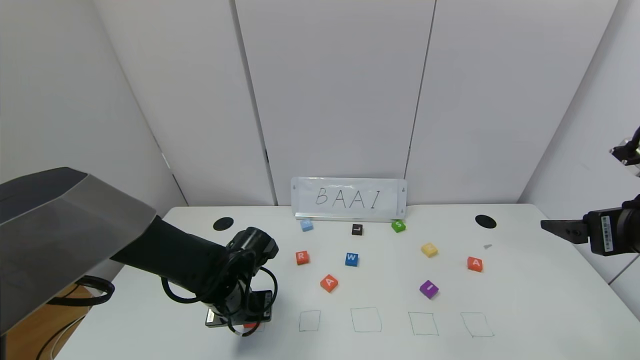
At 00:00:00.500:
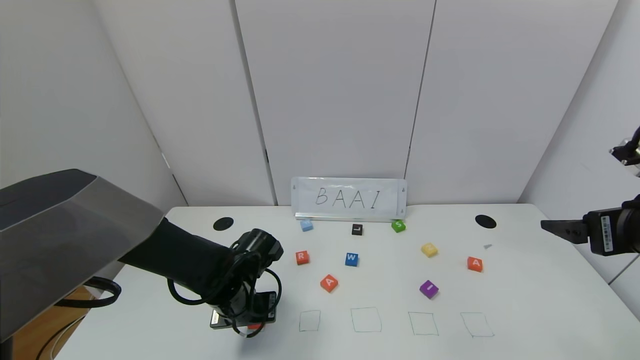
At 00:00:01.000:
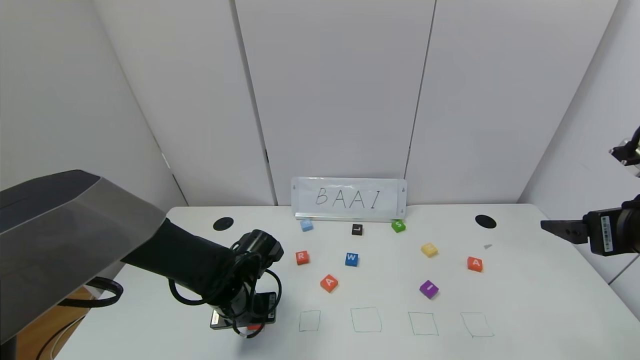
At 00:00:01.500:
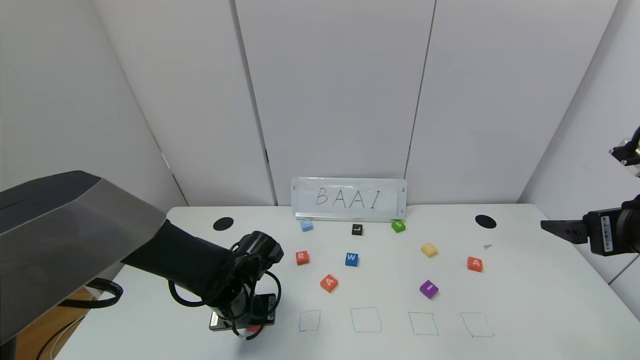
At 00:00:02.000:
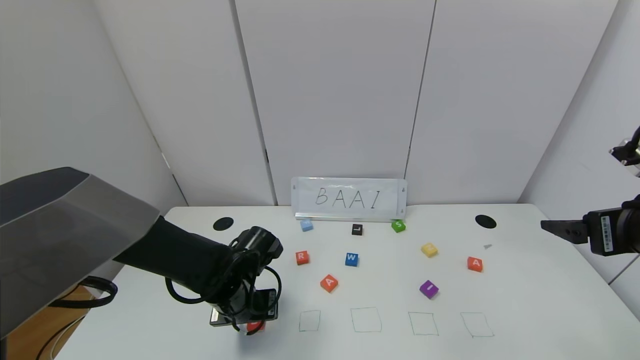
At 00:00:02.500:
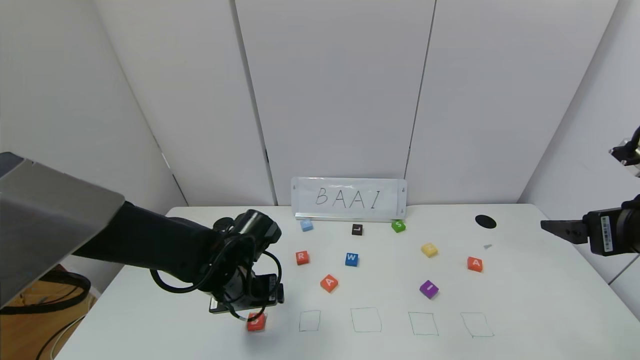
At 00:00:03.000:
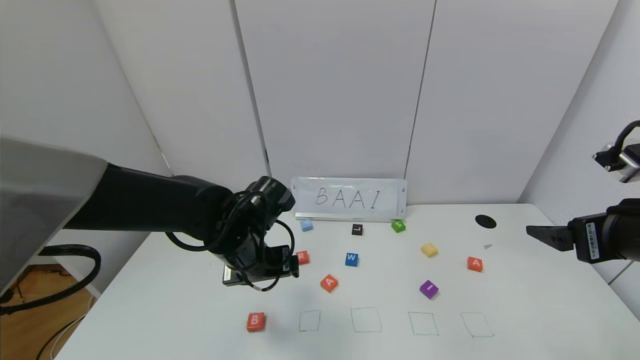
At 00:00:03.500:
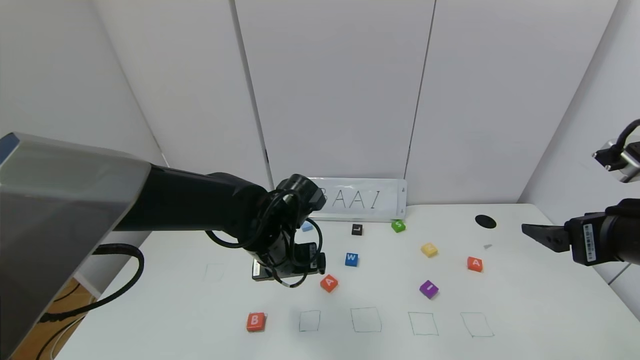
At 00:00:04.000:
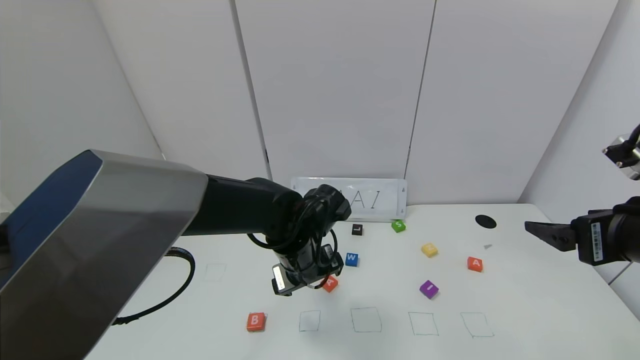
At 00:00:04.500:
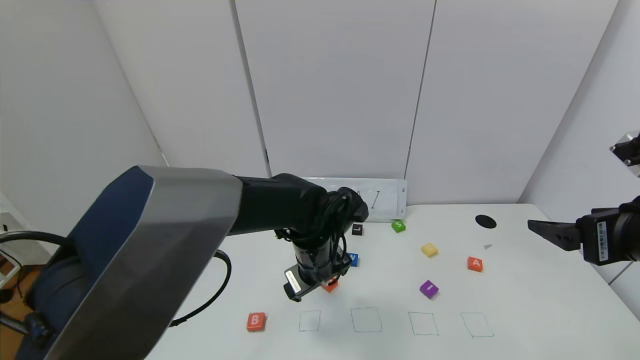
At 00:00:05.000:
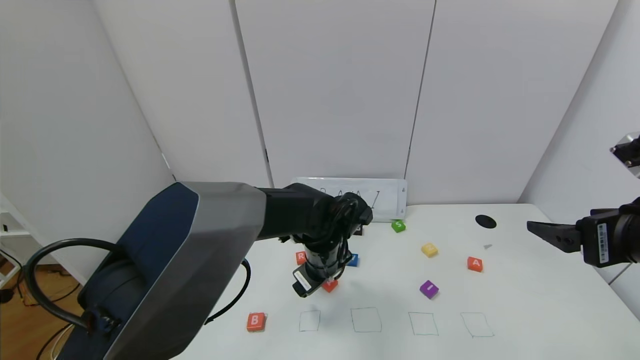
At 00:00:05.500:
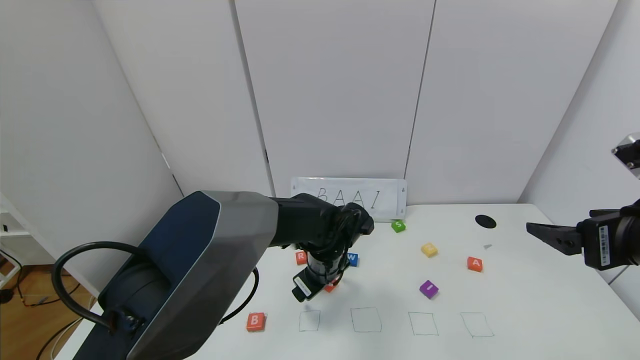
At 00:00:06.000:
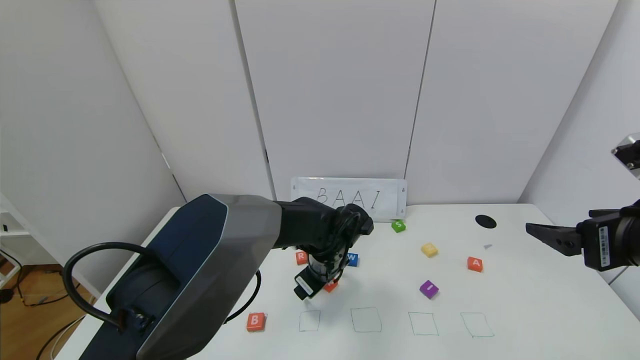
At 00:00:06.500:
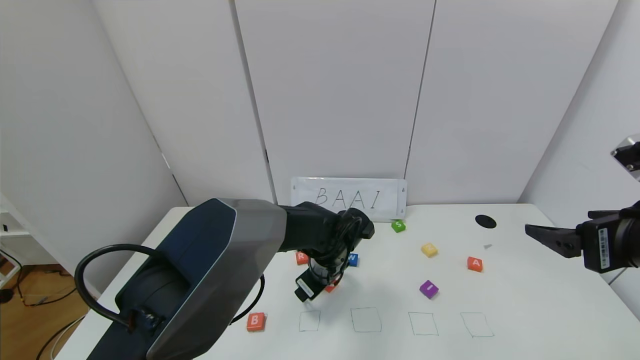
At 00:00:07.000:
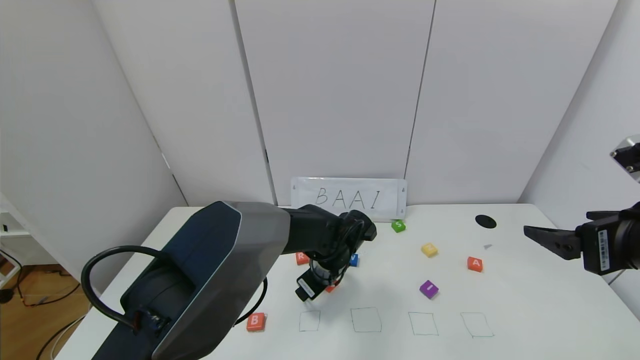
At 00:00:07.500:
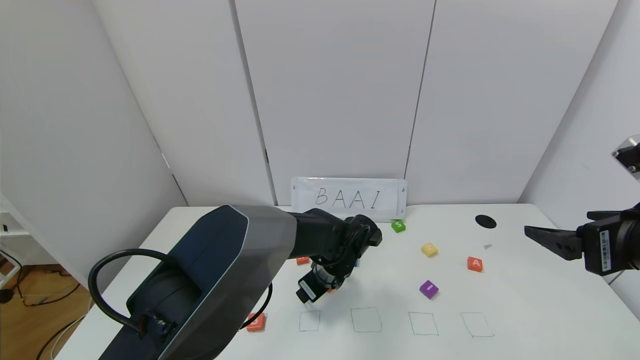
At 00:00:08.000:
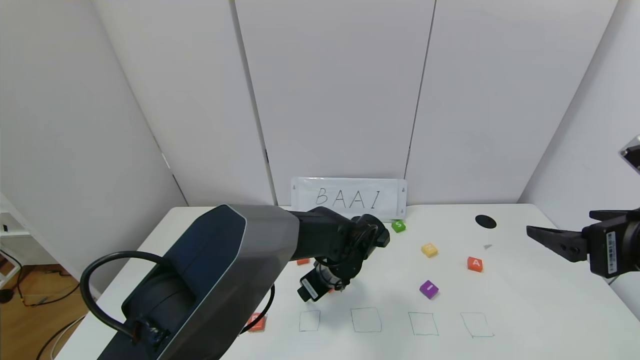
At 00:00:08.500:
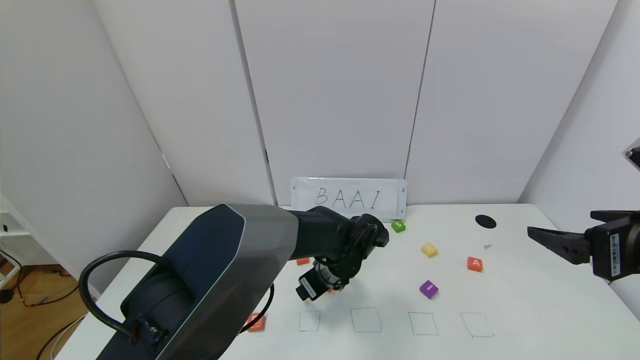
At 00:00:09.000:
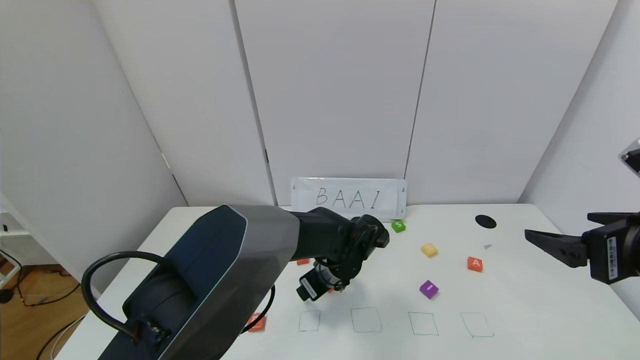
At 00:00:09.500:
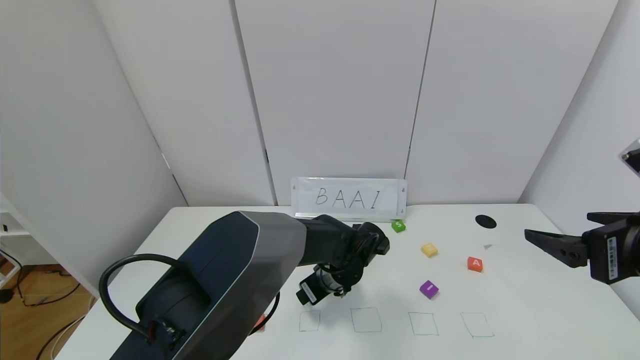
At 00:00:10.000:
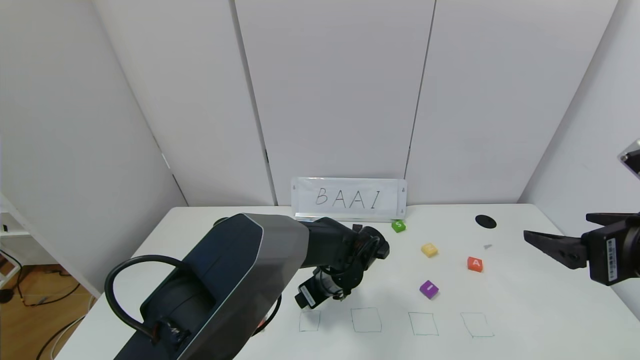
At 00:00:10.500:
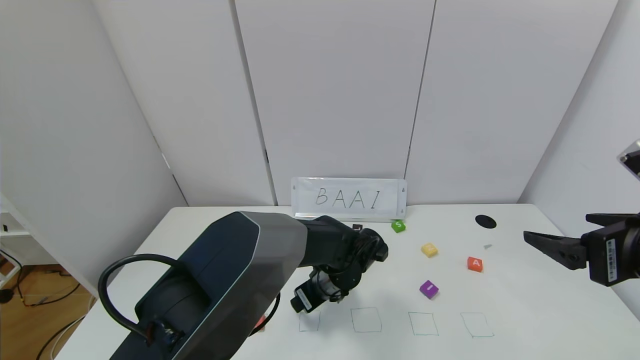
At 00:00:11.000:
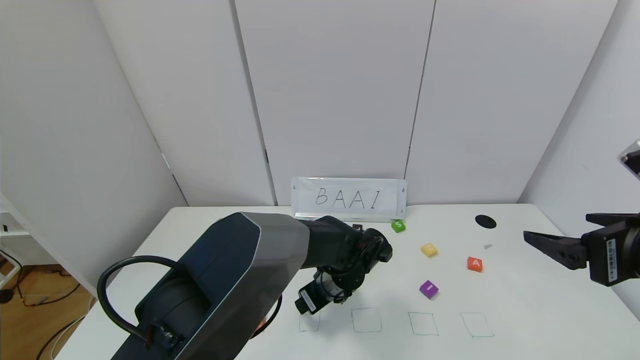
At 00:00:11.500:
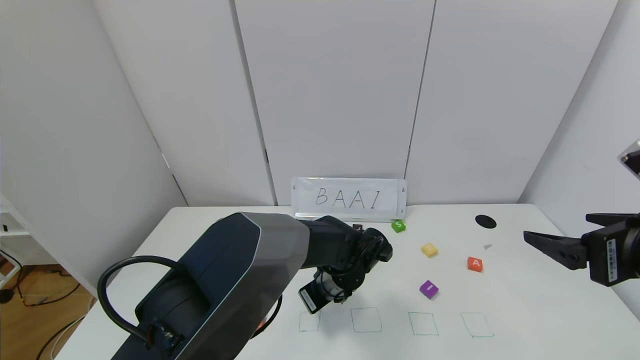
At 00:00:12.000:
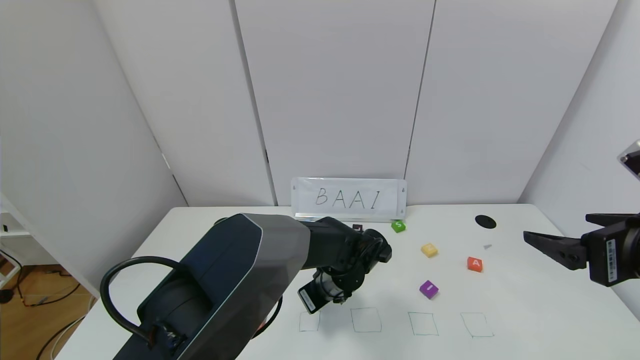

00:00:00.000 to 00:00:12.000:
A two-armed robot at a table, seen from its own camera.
Task of the whole recording: use the gripper to find blocks with the letters b, a, a, and i on the table and arrange them into BAAI, then find r and N and turn the arranged baai into brian.
Step, 00:00:00.000 to 00:00:02.000: Place the block B in the first location.
00:00:00.000 to 00:00:02.000: The left gripper opens up.
00:00:02.000 to 00:00:04.000: The left gripper travels to the right and upward by about 10 cm.
00:00:04.000 to 00:00:06.000: The left gripper shifts roughly 5 cm downward.
00:00:06.000 to 00:00:10.000: The grippers make only small movements.
00:00:10.000 to 00:00:12.000: The left gripper closes.

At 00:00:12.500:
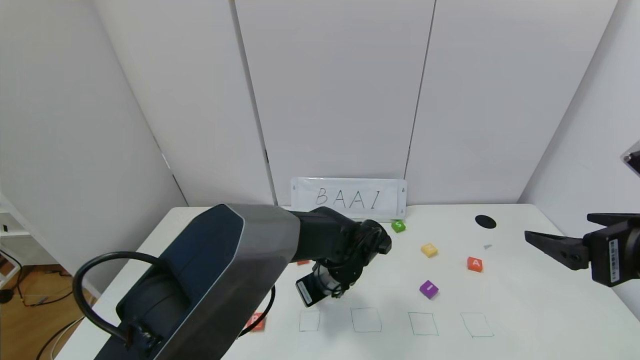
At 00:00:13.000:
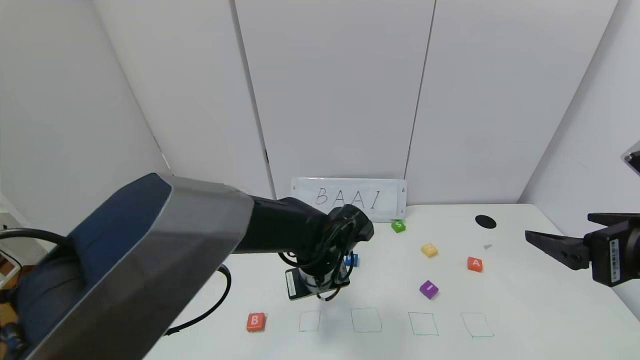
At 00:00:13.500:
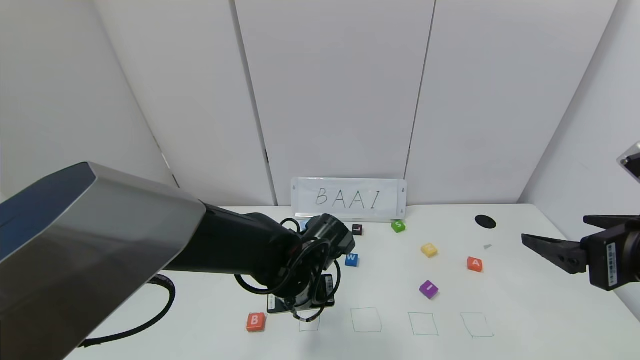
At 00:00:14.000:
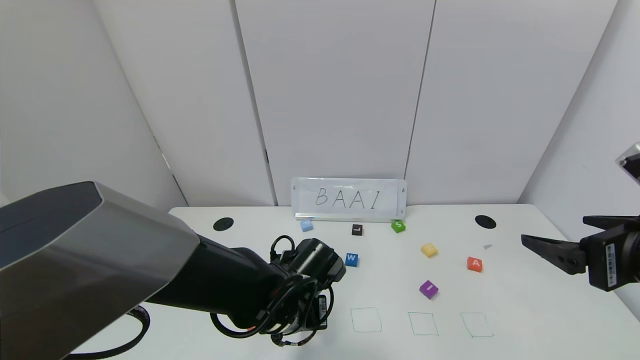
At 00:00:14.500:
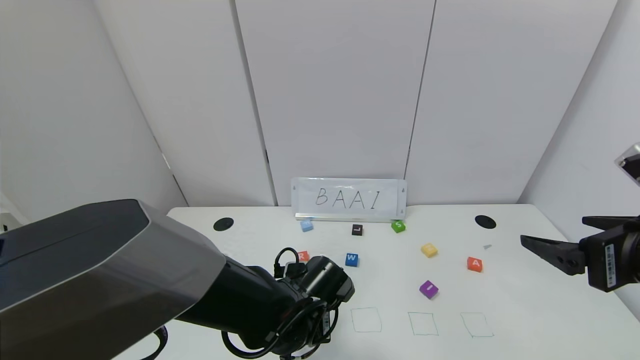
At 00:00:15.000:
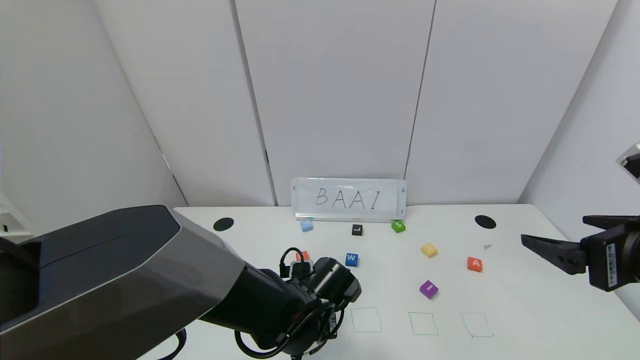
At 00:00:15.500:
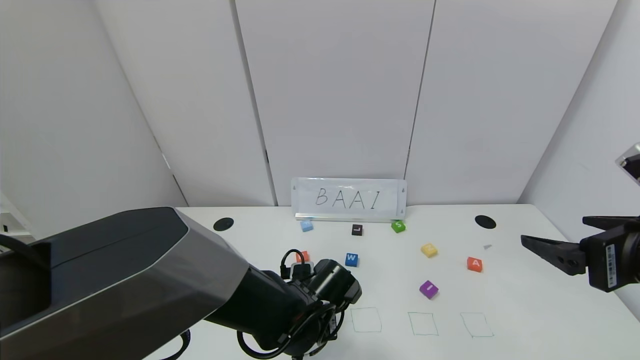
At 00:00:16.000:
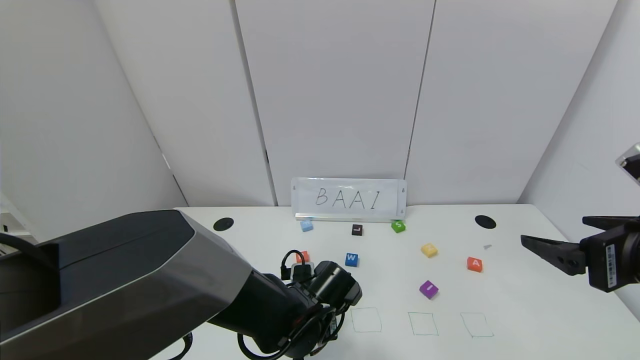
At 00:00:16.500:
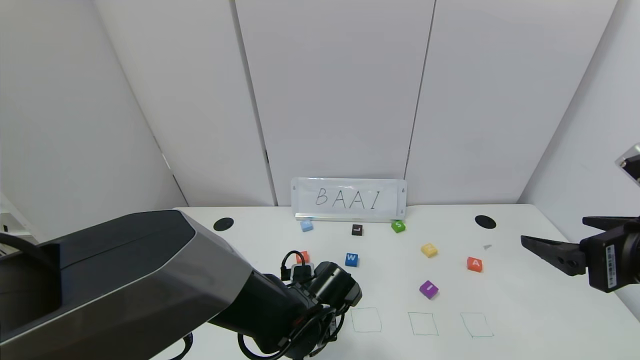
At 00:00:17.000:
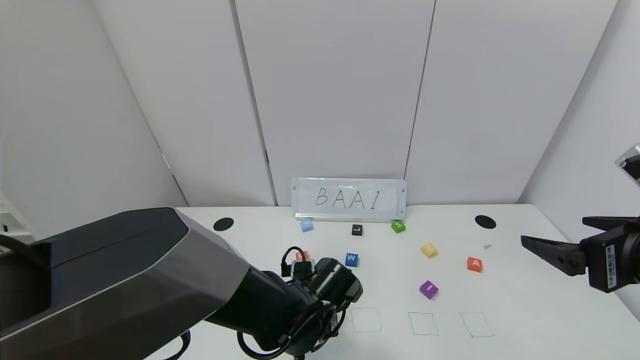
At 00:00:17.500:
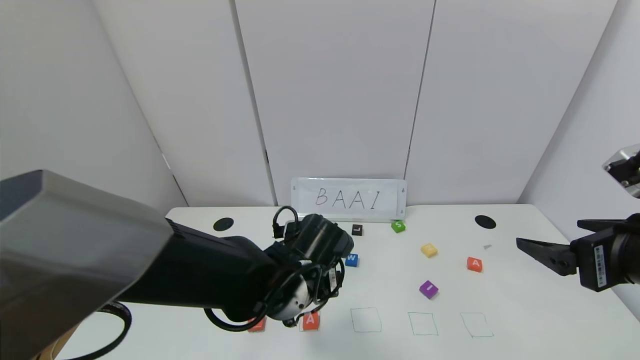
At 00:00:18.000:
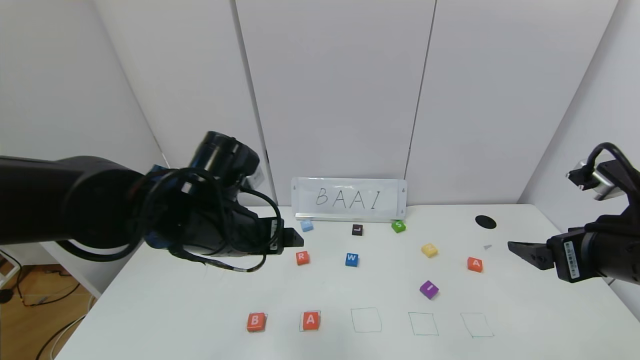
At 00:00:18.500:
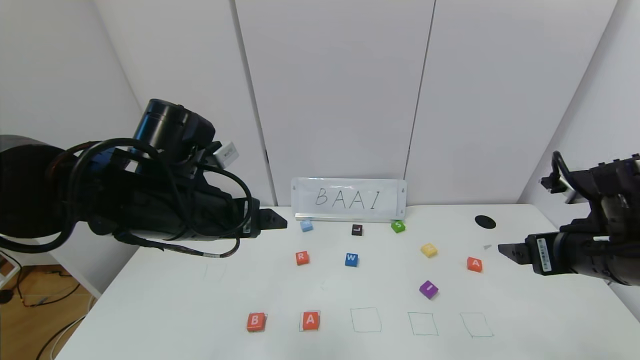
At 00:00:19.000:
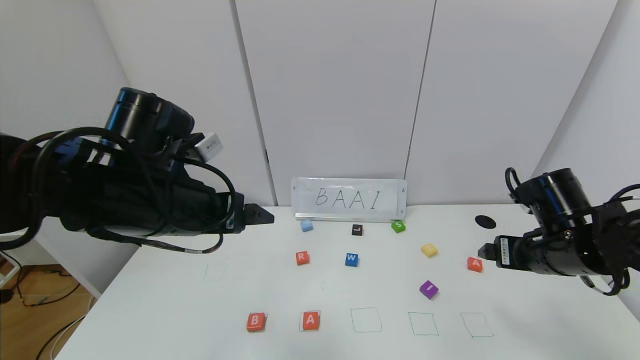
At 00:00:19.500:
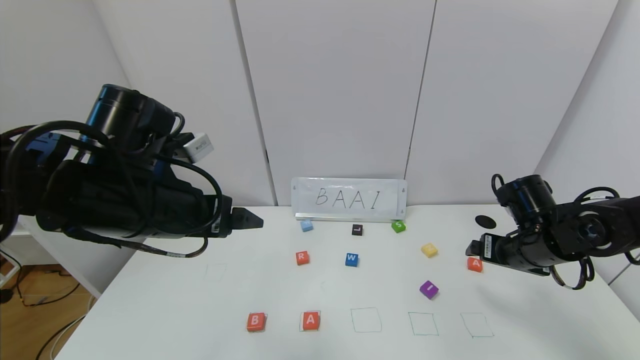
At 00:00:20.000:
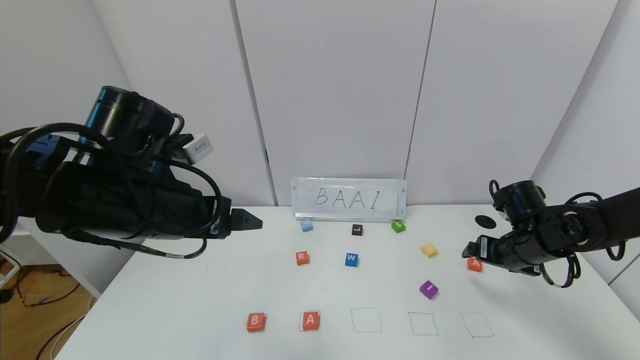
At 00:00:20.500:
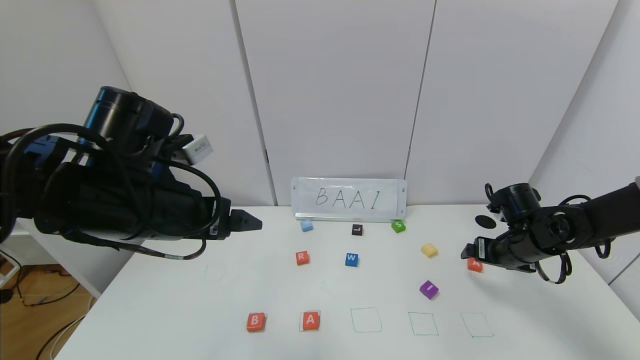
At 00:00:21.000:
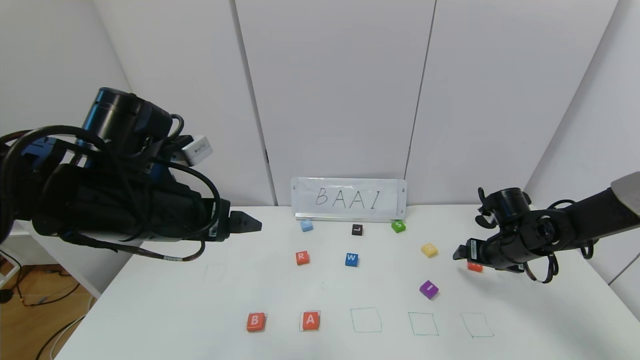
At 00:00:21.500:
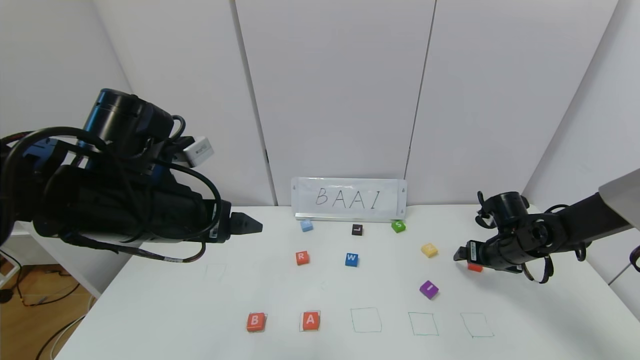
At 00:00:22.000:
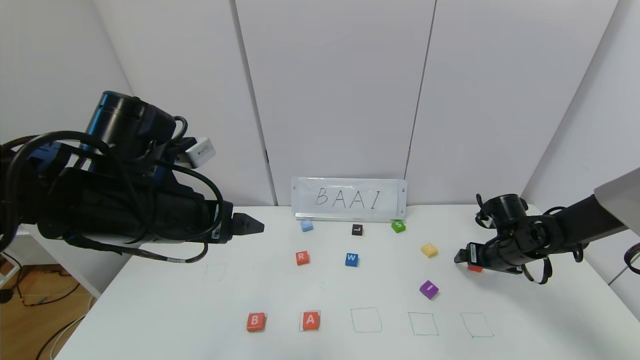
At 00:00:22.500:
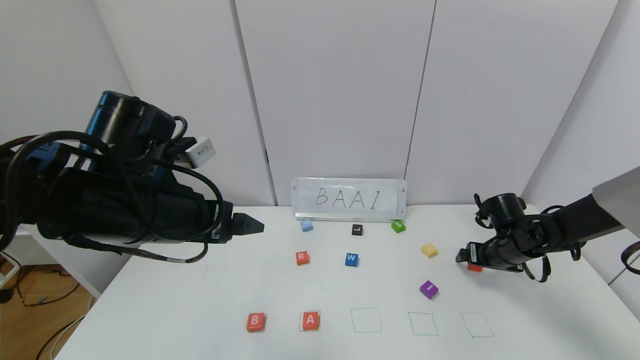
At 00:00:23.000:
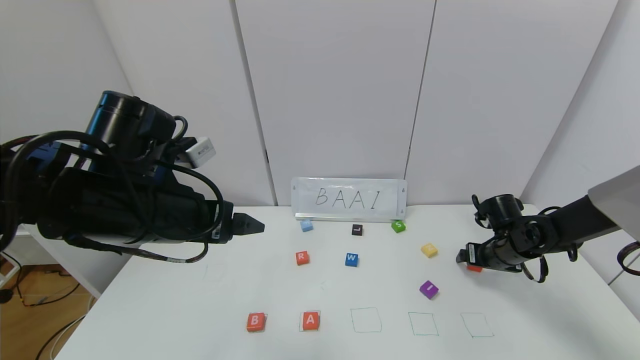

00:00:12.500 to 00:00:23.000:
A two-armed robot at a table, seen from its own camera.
Task of the whole recording: use the gripper to find blocks with the letters b, a, a, and i on the table and arrange them into BAAI, then find r and N and turn the arranged baai into brian.
Step, 00:00:12.500 to 00:00:17.000: Place the first block A in the second location.
00:00:12.500 to 00:00:14.500: The left gripper shifts some 10 cm backward and to the left.
00:00:14.500 to 00:00:16.500: The grippers stay close to where they were, moving slightly.
00:00:16.500 to 00:00:19.000: The left gripper goes approximately 25 cm upward and to the left, and opens up. Meanwhile the right gripper moves forward and downward, roughly 15 cm.
00:00:19.000 to 00:00:21.000: The right gripper shifts approximately 15 cm forward and downward.
00:00:21.000 to 00:00:23.000: The grippers make only small movements.
